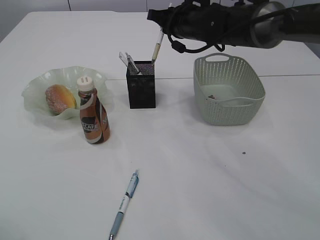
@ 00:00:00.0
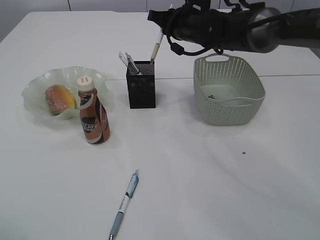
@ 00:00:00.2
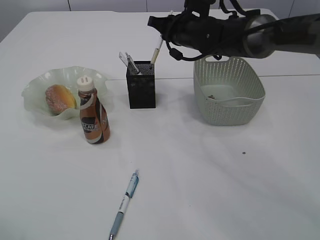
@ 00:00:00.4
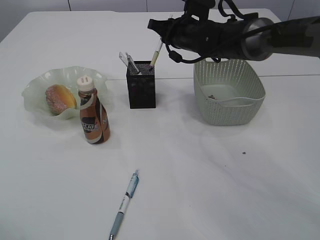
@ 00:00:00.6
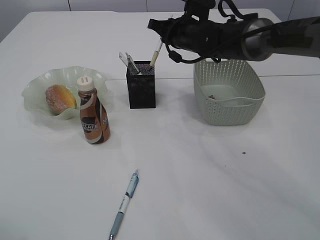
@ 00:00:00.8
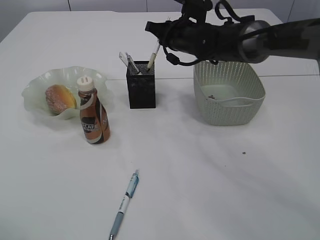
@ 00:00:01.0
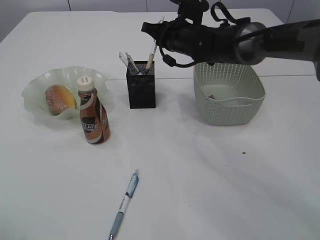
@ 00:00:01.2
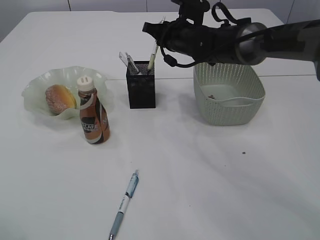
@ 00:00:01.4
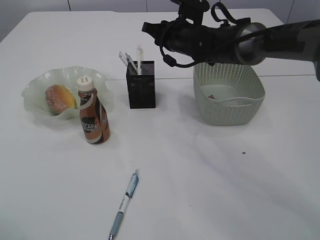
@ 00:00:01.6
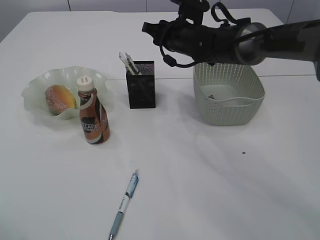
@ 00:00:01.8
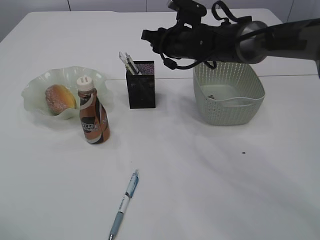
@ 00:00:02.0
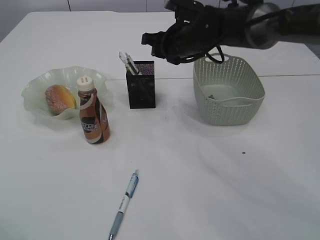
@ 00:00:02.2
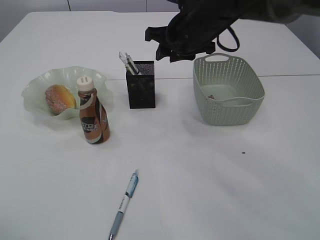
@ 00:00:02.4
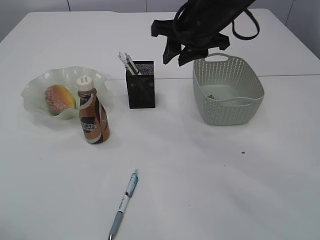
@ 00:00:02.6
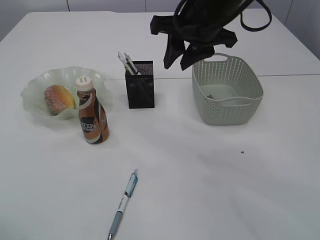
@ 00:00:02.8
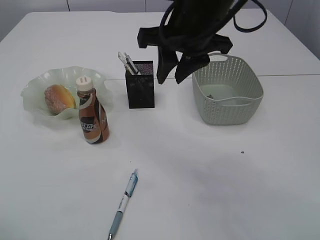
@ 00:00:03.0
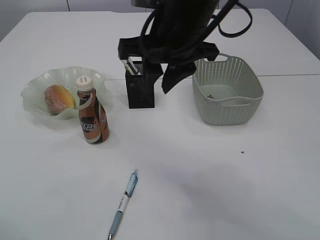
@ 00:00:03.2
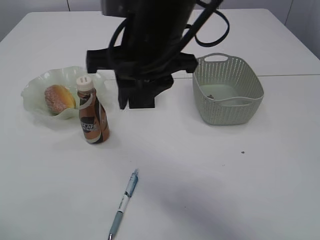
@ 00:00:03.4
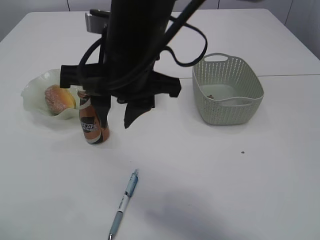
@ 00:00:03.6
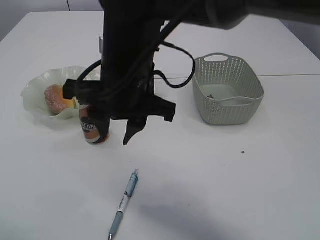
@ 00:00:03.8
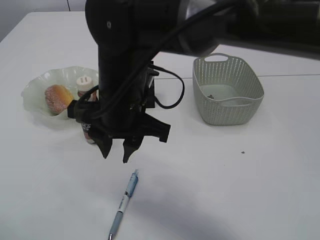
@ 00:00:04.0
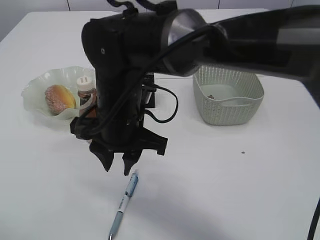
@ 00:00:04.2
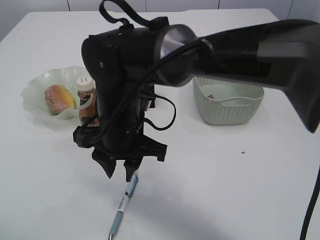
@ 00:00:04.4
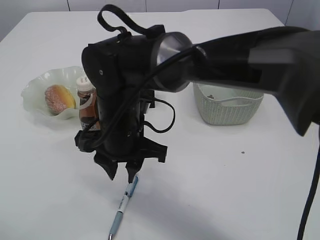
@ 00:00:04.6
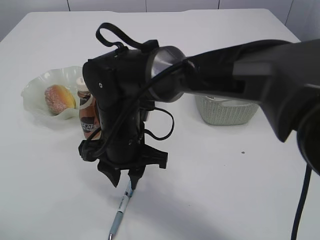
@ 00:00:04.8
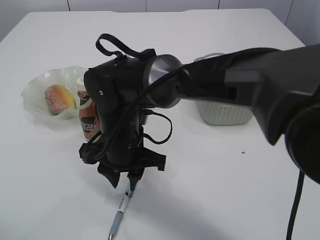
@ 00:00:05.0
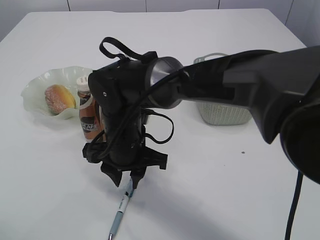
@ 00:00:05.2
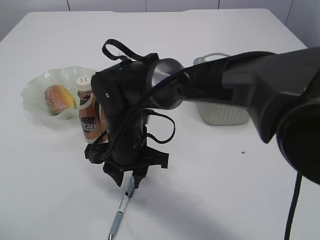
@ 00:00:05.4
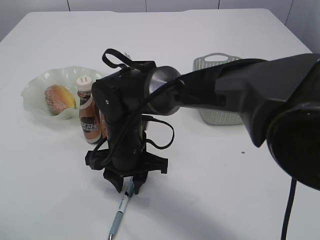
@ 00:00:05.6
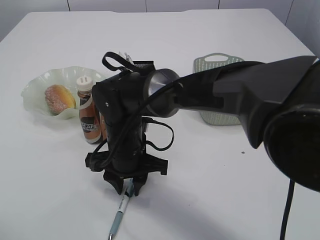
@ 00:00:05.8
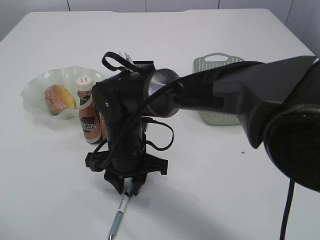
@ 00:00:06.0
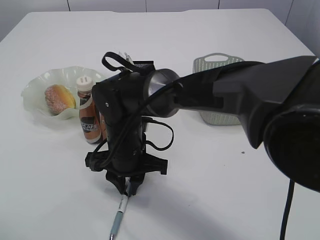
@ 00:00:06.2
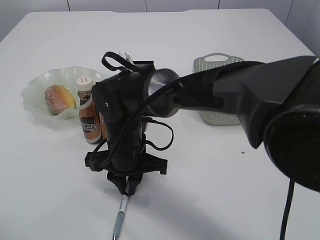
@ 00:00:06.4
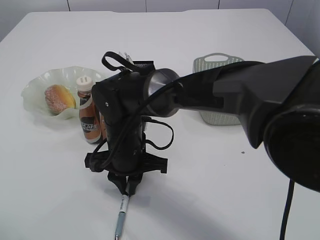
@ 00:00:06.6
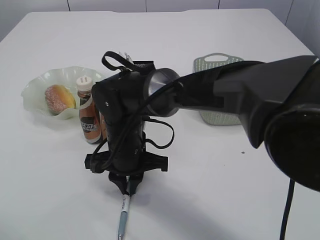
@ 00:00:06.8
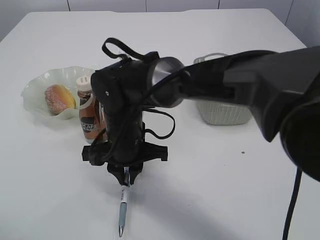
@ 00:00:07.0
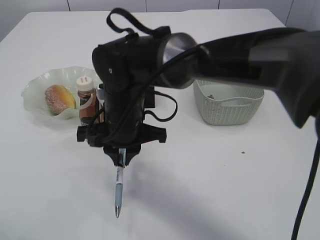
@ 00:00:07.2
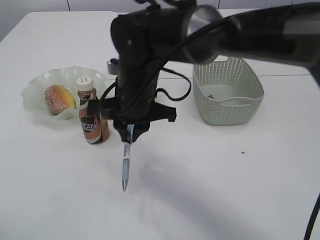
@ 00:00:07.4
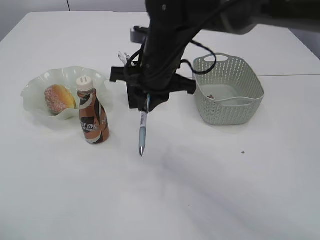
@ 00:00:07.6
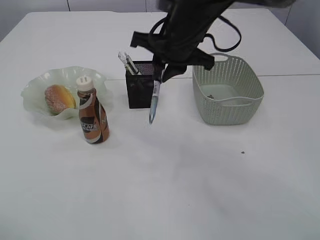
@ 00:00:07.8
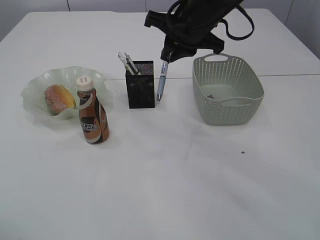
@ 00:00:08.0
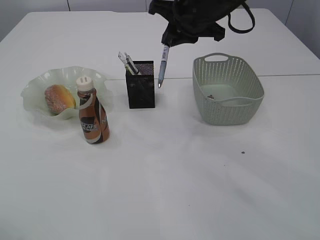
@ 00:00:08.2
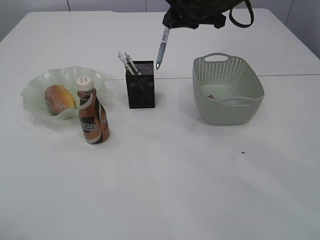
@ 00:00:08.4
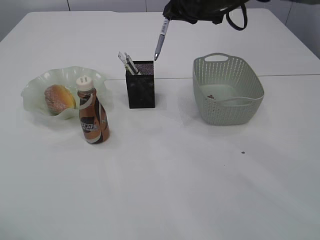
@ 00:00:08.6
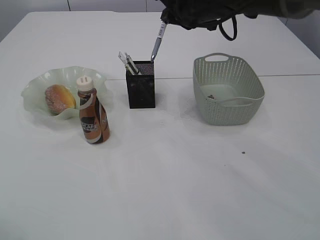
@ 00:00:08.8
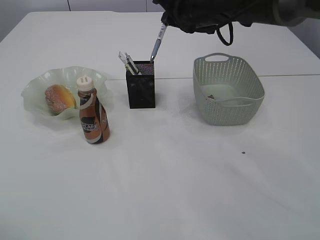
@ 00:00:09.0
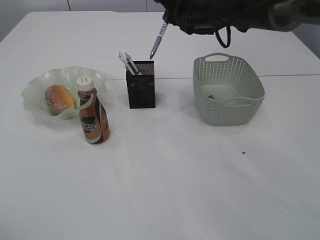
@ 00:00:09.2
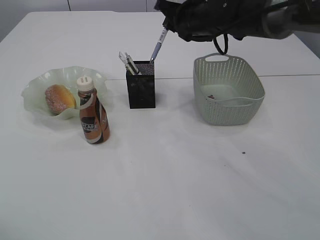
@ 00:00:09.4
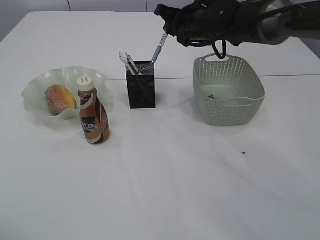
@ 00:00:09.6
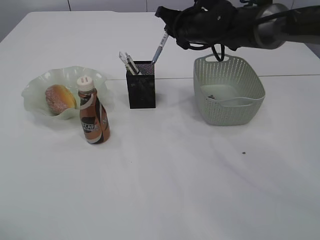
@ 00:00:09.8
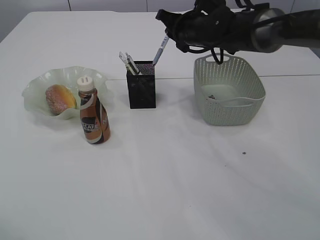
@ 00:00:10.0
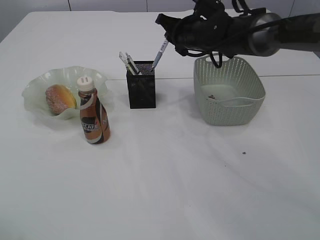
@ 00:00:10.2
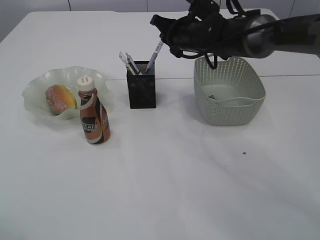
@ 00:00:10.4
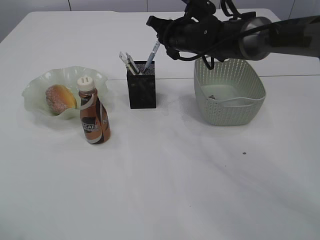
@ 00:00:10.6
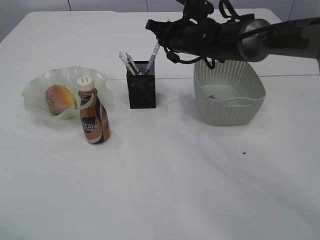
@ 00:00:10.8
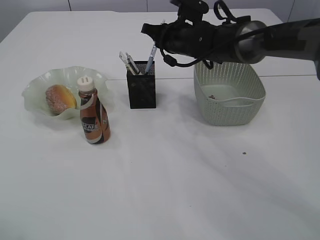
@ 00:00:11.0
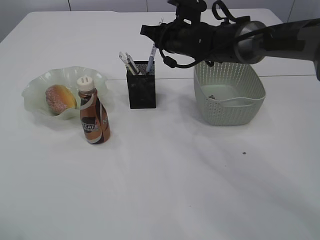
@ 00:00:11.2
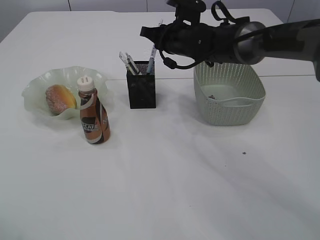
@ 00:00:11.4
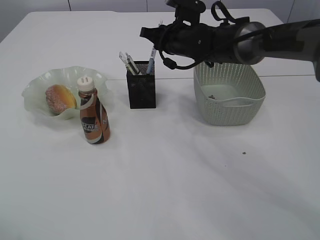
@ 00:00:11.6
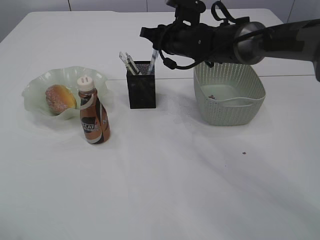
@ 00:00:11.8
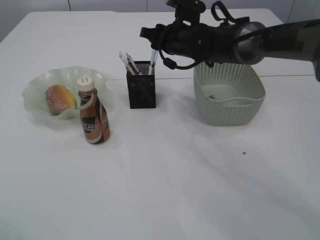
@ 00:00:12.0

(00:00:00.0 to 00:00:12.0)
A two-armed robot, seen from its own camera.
Step, 00:00:00.0 - 00:00:01.6: Place the pen into the pen holder.
Step, 00:00:01.8 - 00:00:07.2: Pick up the pen with right arm.
00:00:00.0 - 00:00:01.6: The grippers move only a little.
00:00:01.6 - 00:00:03.0: The right gripper goes some 20 cm backward and upward.
00:00:03.0 - 00:00:04.4: The right gripper goes some 20 cm downward, to the left and backward.
00:00:04.4 - 00:00:06.0: The right gripper is displaced downward by approximately 5 cm.
00:00:06.0 - 00:00:07.6: The right gripper heads upward, to the right and forward, covering approximately 15 cm.
00:00:07.6 - 00:00:09.0: The right gripper moves forward and to the right, approximately 15 cm.
00:00:09.0 - 00:00:10.4: The right gripper shifts some 5 cm downward.
00:00:10.4 - 00:00:12.0: The right gripper opens up.

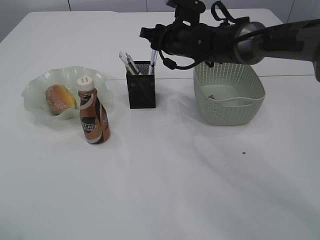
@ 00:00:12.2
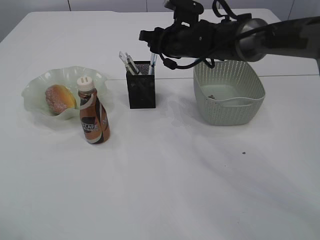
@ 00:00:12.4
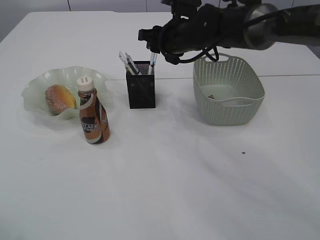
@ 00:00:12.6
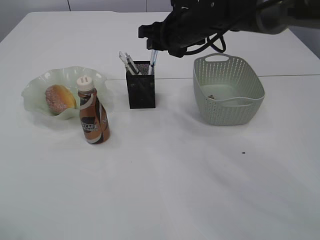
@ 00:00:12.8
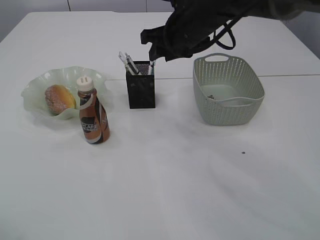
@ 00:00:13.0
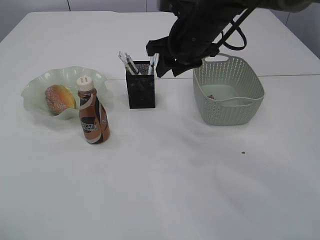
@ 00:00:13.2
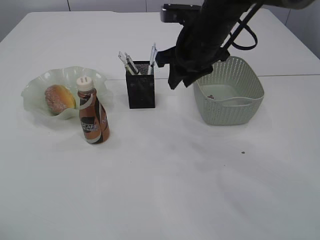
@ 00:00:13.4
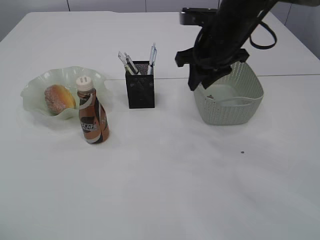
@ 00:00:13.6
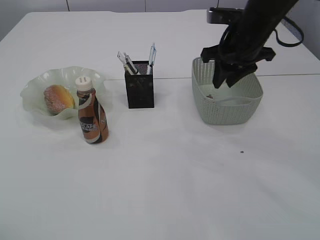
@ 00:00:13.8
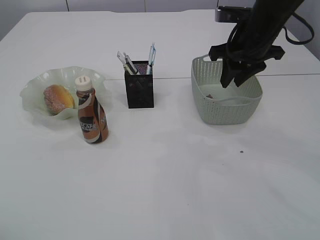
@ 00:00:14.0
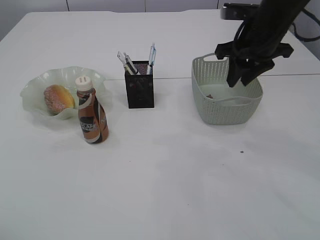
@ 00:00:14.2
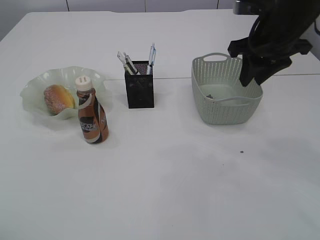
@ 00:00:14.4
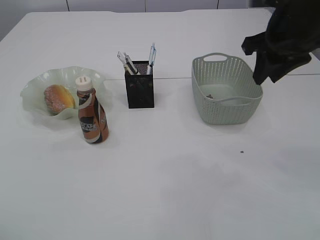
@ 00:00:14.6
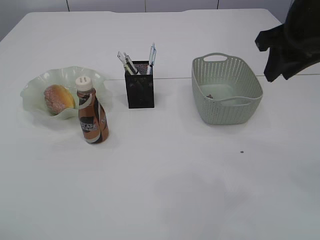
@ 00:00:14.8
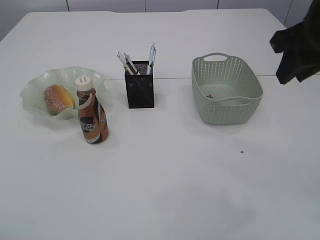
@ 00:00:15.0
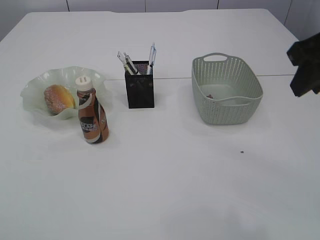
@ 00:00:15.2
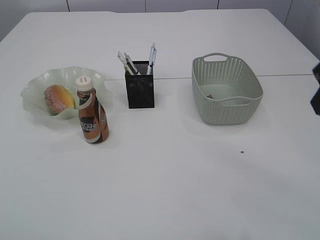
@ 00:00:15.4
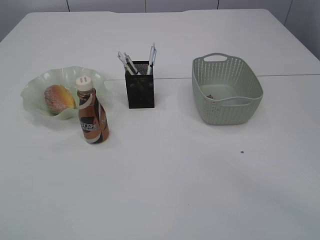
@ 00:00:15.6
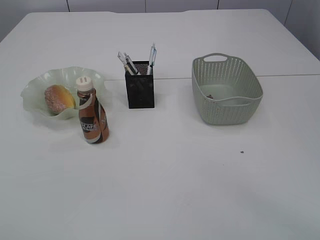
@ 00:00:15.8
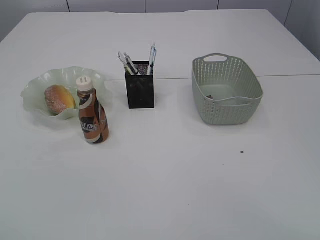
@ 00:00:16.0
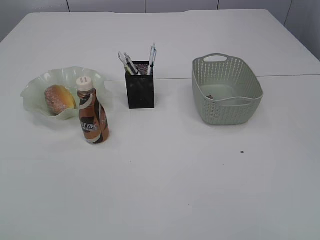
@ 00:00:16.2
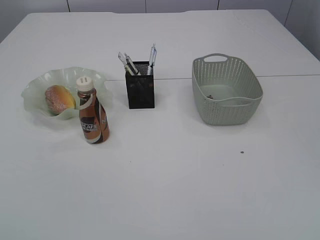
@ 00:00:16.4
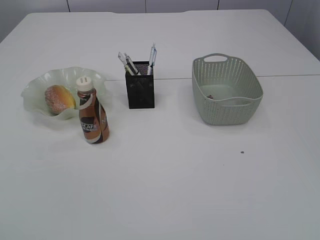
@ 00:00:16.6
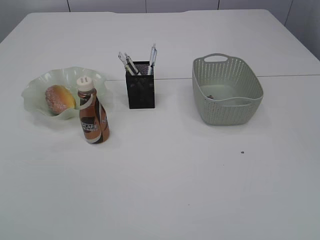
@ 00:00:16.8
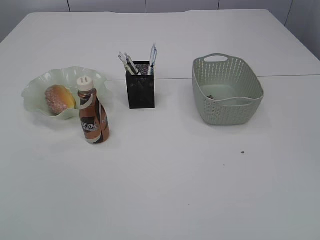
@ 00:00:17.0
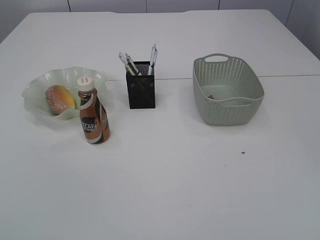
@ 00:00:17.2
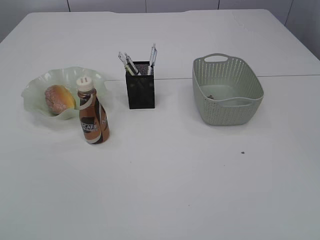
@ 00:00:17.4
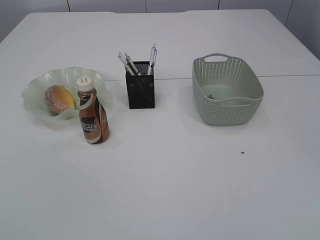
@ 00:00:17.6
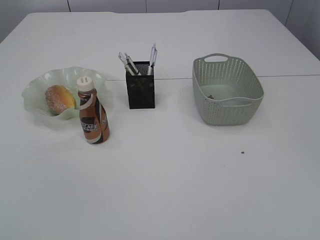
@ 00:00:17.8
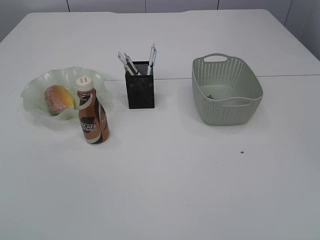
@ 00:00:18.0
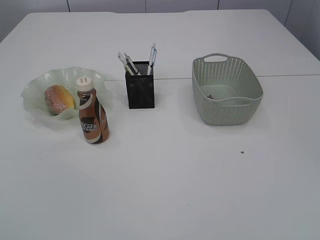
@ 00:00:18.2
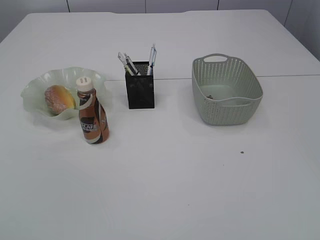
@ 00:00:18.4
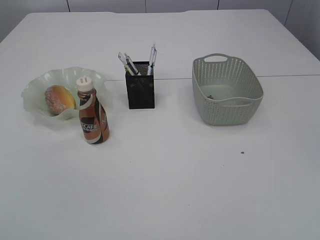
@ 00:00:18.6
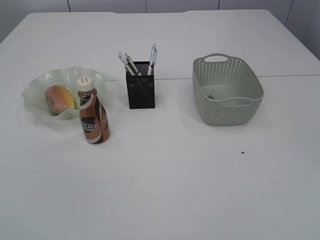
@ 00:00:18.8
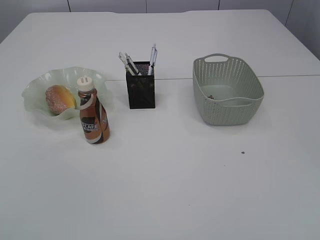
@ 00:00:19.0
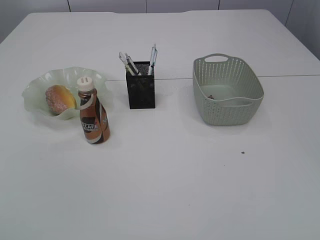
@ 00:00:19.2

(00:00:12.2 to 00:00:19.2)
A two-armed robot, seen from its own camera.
00:00:12.2 - 00:00:13.6: The right gripper travels backward, to the right and upward by approximately 10 cm.
00:00:13.6 - 00:00:15.0: The right gripper heads backward, to the right and upward, covering approximately 15 cm.
00:00:15.0 - 00:00:16.4: The left gripper moves backward, roughly 20 cm, while the right gripper moves backward, roughly 30 cm.
